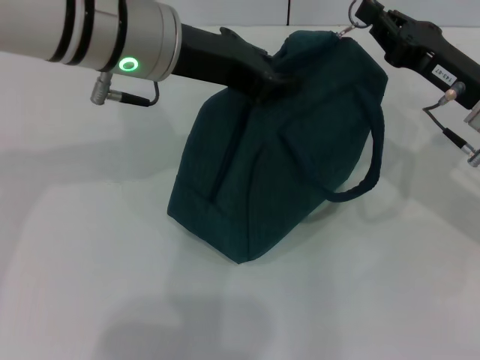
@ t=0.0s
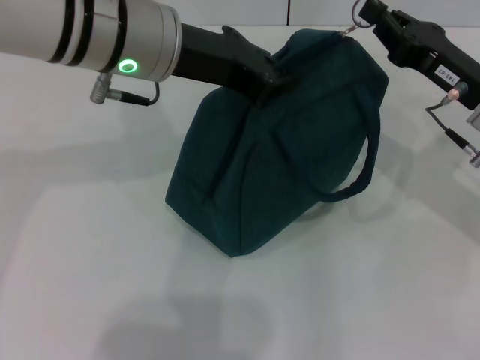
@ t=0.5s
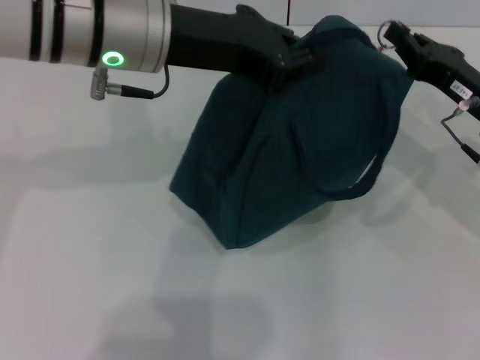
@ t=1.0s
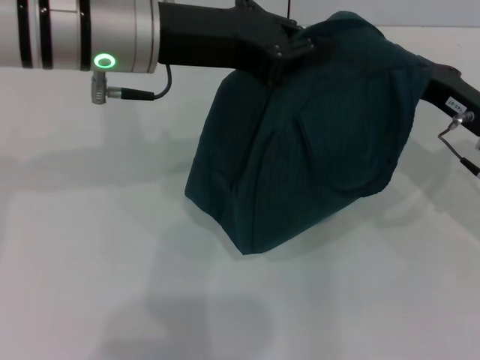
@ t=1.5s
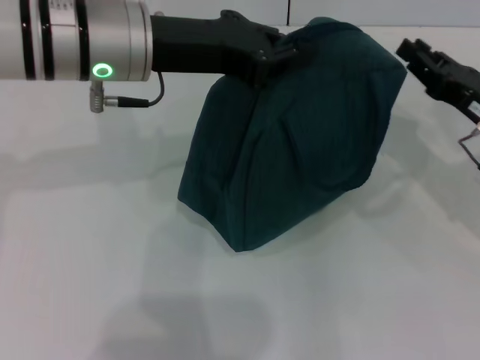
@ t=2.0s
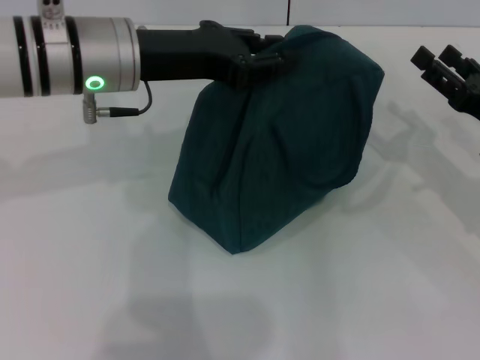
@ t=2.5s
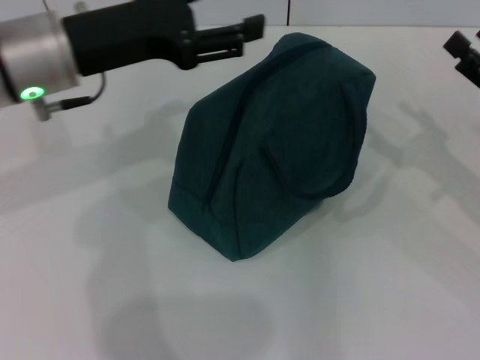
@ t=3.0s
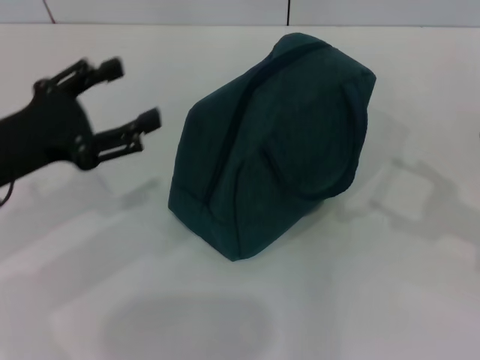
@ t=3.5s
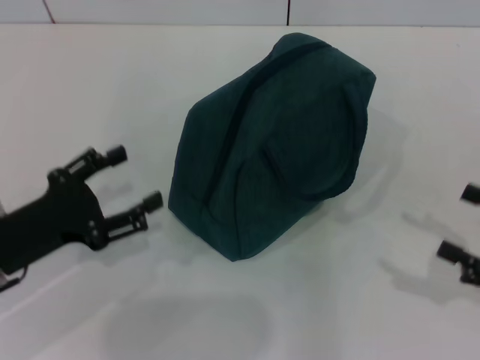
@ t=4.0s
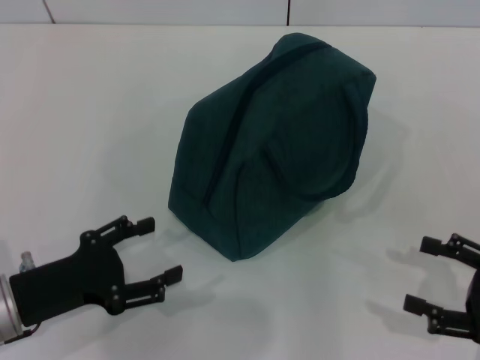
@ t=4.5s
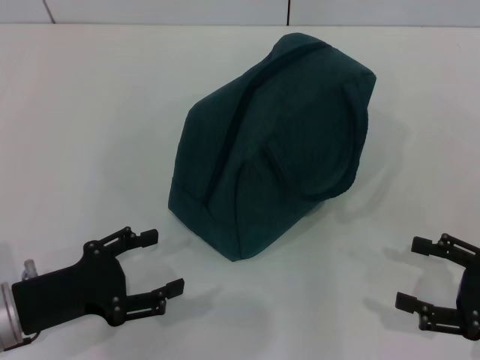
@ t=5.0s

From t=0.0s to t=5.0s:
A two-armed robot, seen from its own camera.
Step, from t=2.0s to t=2.5s: Hold the lunch bag with your left hand.
From t=0.0s to t=2.5s: The left gripper moves about 5 cm; the right gripper moves to the right, some 5 cm, and opens up.
From t=2.5s to t=5.0s: The right gripper goes about 10 cm backward, while the left gripper shifts roughly 25 cm backward, downward and to the left, and opens.
